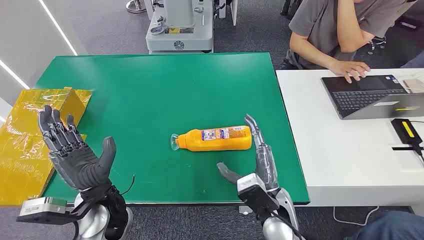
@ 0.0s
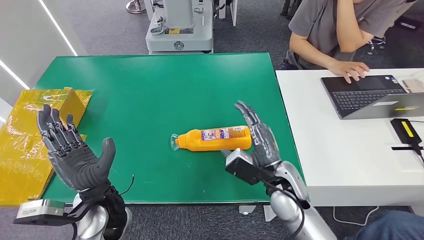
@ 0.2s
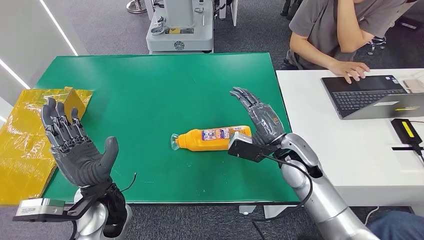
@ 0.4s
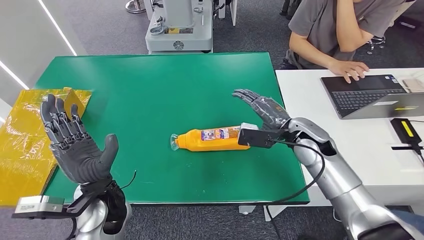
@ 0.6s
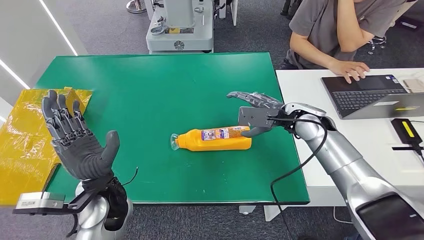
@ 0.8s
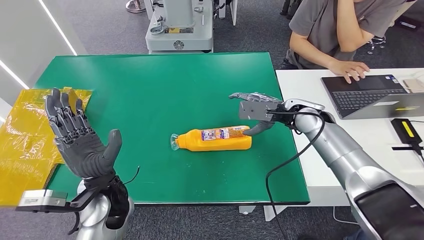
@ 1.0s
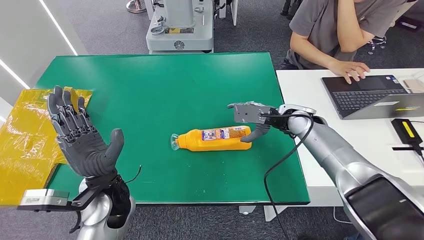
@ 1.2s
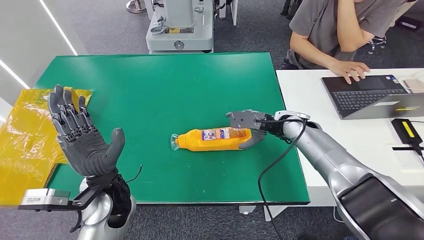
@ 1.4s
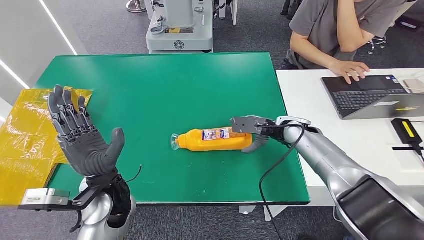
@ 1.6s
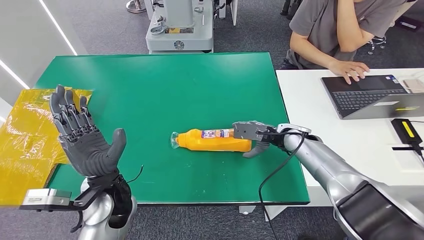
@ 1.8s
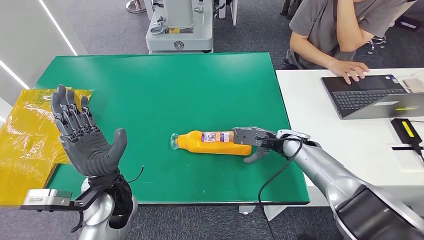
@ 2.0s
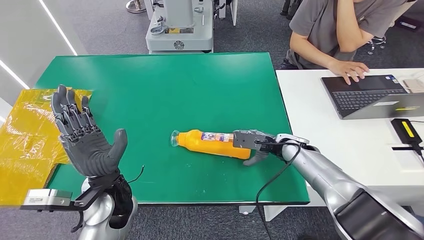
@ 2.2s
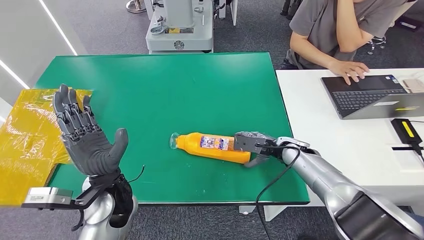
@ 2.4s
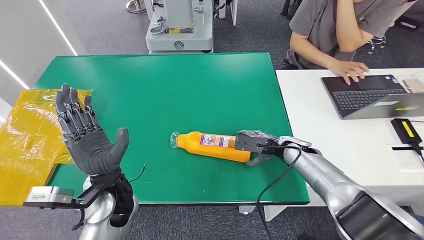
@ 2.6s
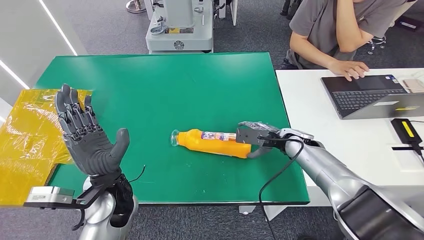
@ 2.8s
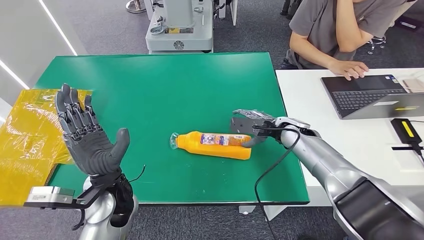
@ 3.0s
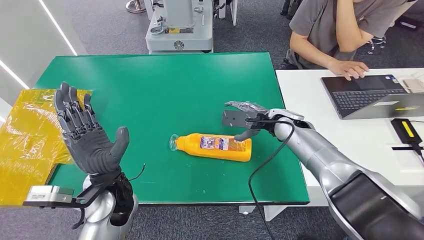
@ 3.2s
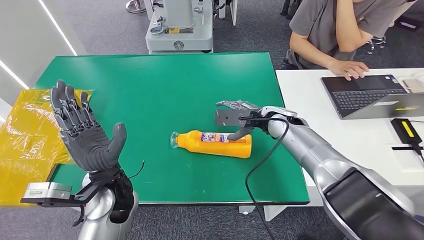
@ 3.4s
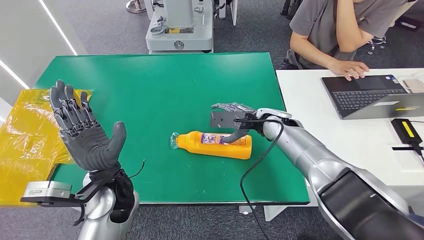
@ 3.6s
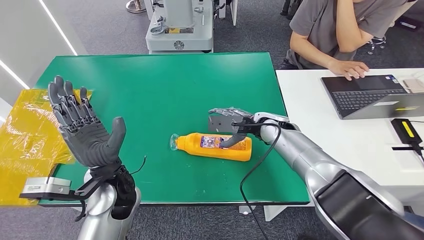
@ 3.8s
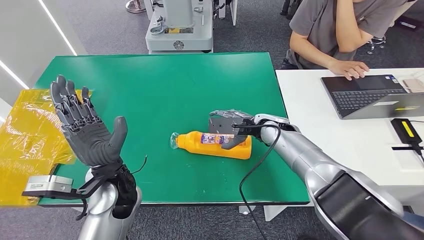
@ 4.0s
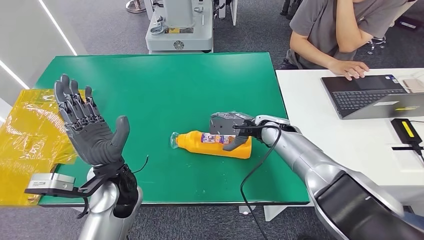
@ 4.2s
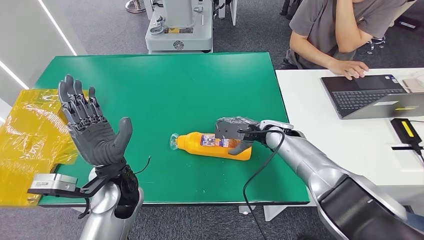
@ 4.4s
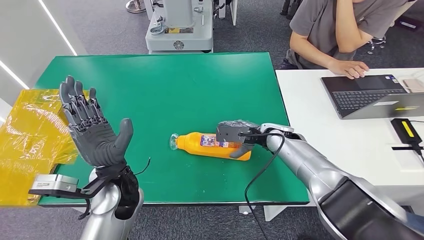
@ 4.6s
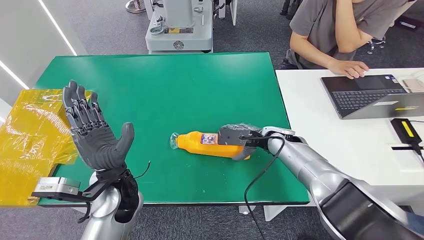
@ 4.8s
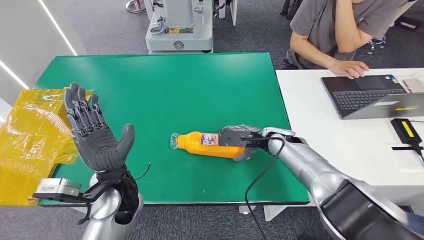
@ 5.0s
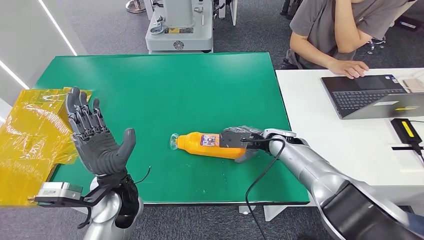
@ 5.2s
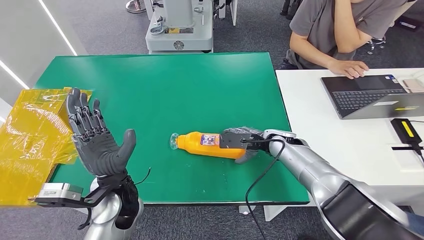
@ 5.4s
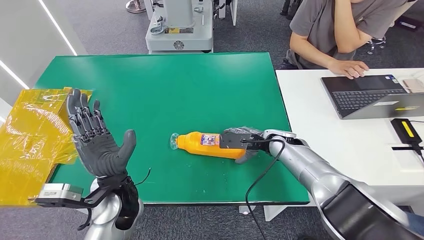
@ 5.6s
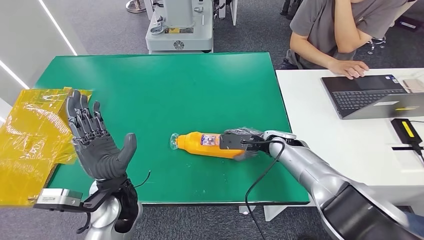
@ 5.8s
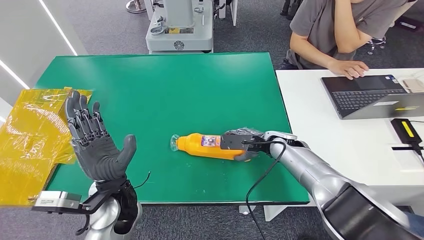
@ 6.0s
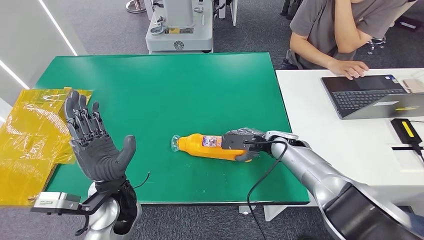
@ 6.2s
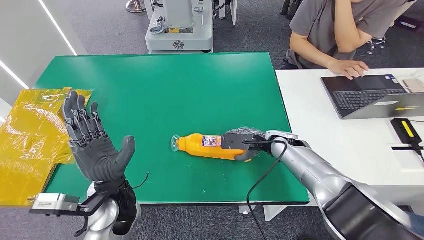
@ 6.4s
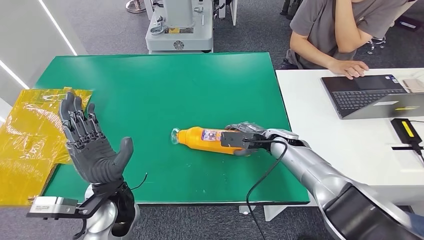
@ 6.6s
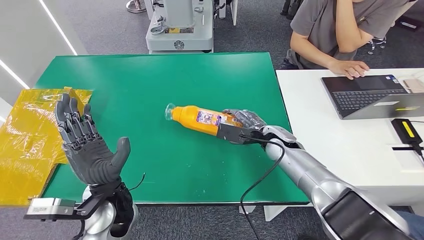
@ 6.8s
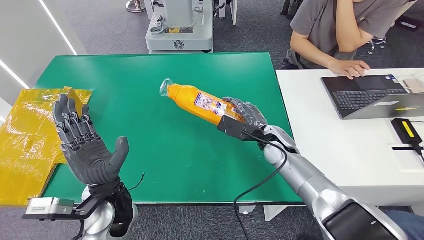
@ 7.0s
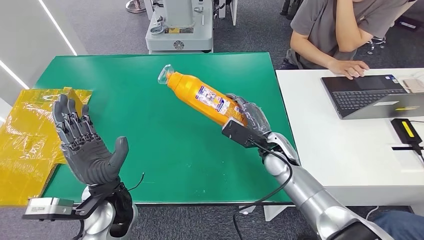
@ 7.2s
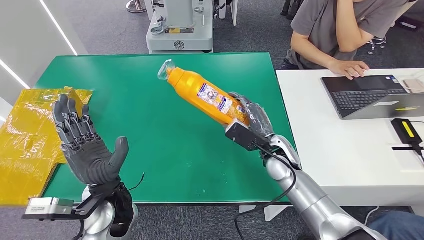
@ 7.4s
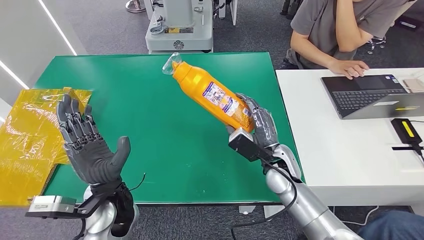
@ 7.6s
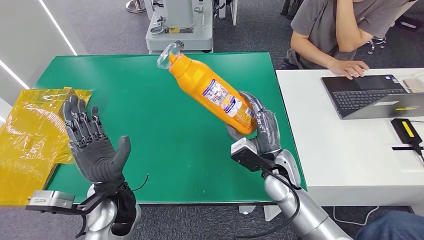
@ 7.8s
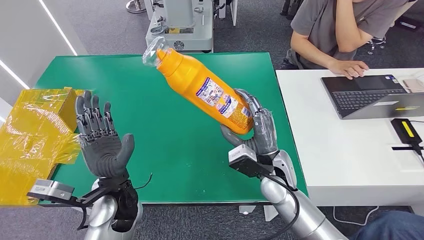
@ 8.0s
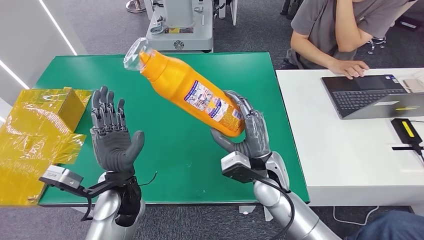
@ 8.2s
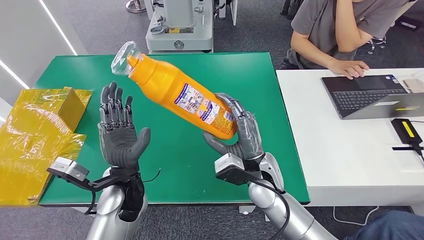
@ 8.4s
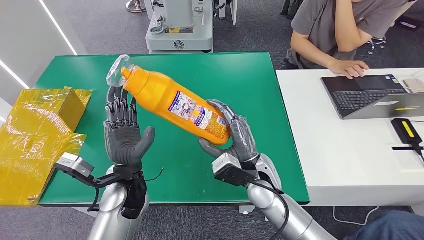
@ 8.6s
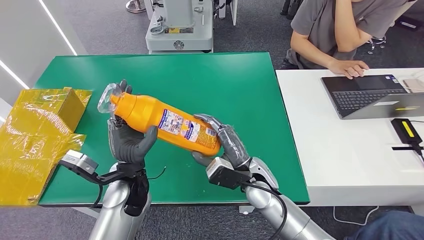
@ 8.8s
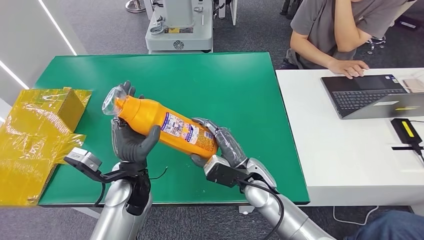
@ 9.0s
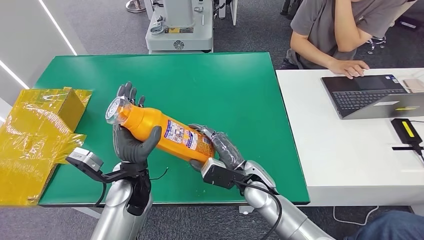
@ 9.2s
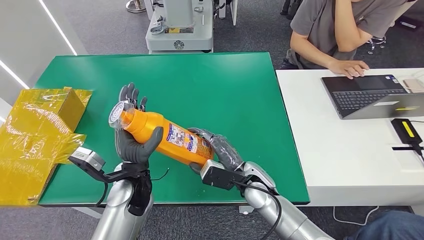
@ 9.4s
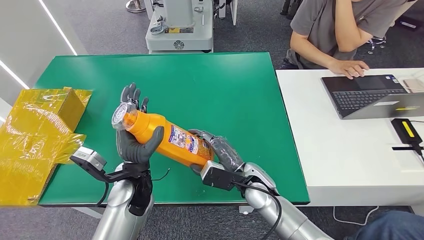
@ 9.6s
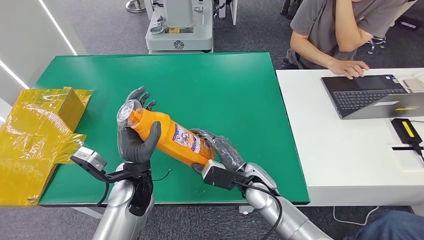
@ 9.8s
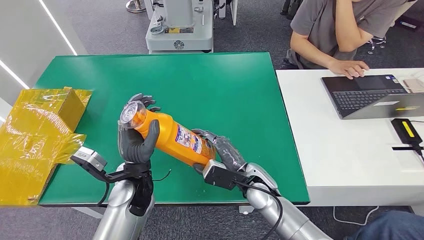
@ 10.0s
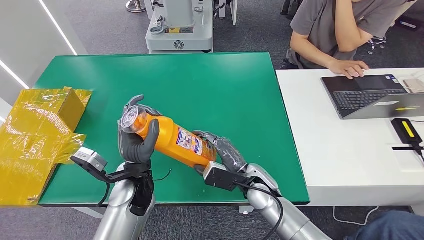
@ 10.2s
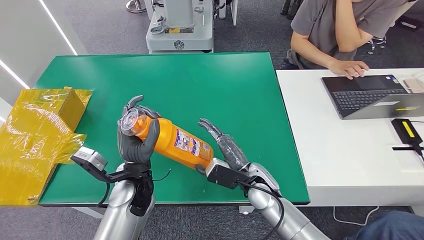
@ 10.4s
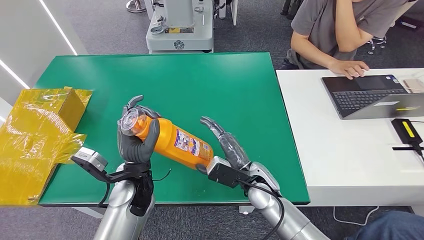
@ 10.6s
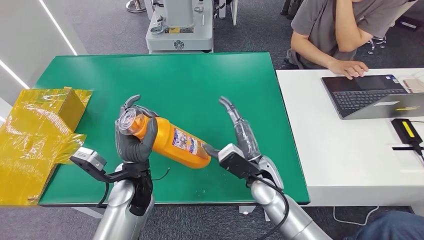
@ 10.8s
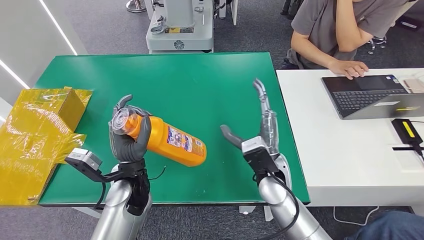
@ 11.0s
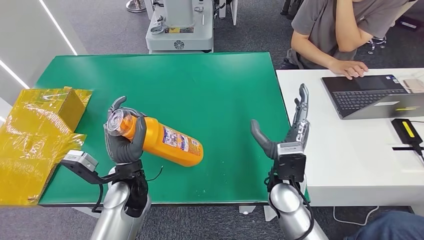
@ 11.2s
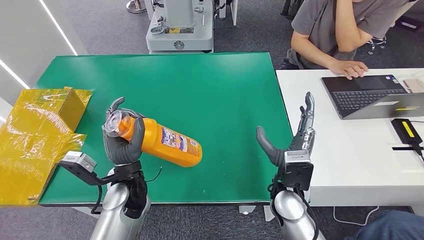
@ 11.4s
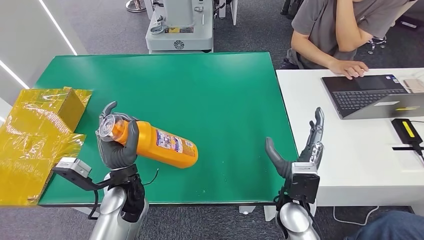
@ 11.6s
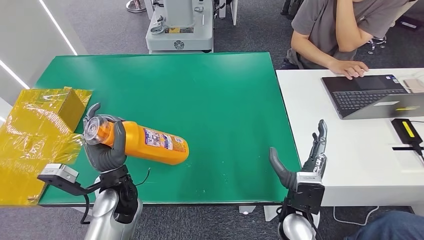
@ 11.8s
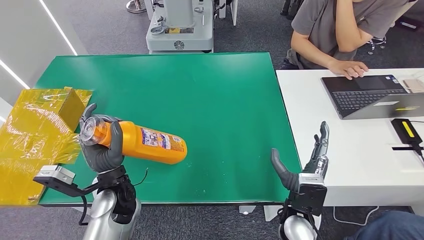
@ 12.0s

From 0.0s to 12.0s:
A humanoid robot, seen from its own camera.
Step, from 0.0s to 9.0s: Pick up the bottle from the table.
From 4.4s to 6.0s: The hands move only a little.
From 6.0s to 7.6s: The right hand is displaced backward by about 10 cm.
From 9.0s to 10.4s: There are only small adjustments of the hands.
From 10.4s to 12.0s: The right hand goes about 10 cm backward and to the right.

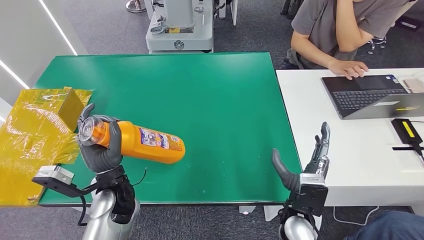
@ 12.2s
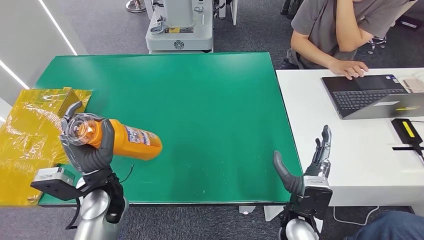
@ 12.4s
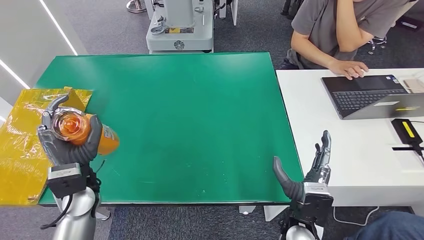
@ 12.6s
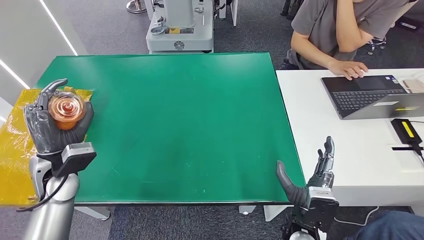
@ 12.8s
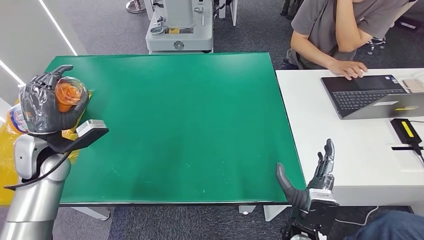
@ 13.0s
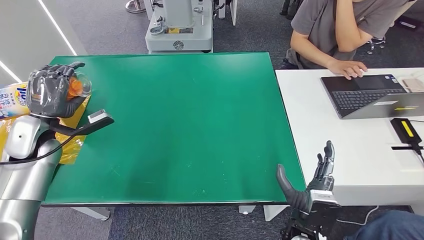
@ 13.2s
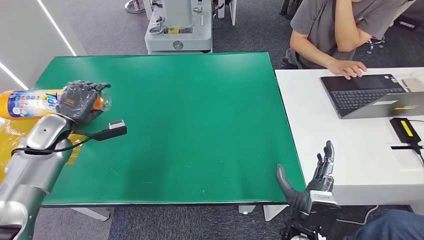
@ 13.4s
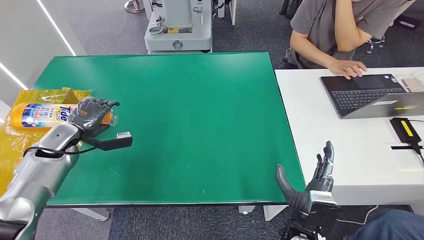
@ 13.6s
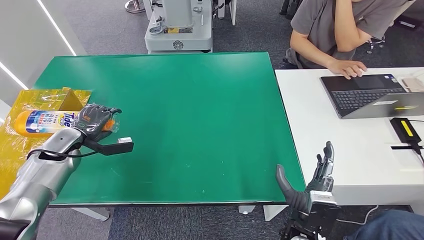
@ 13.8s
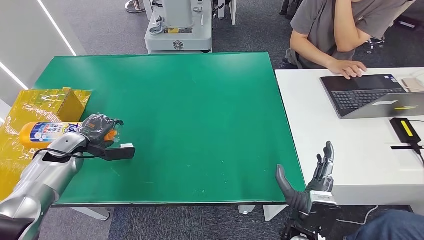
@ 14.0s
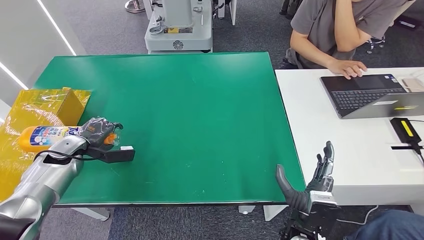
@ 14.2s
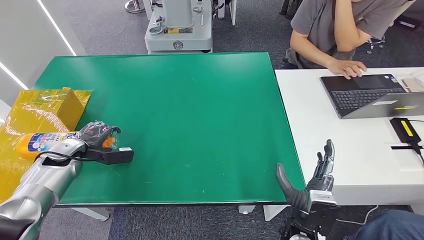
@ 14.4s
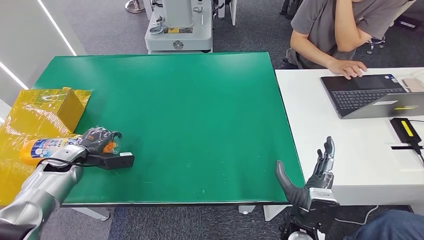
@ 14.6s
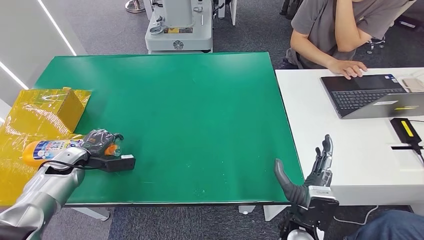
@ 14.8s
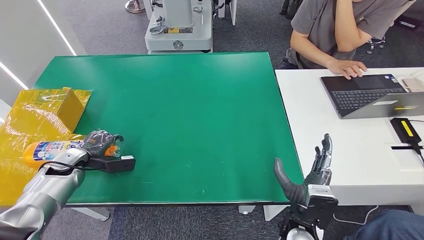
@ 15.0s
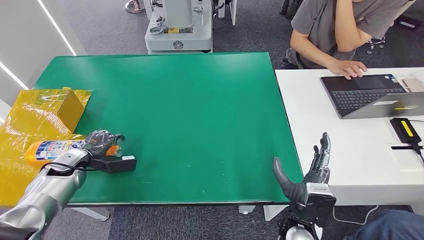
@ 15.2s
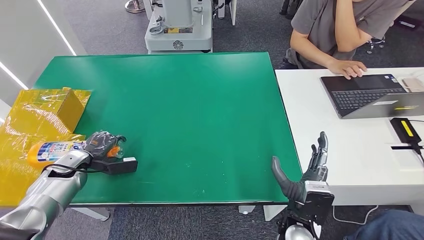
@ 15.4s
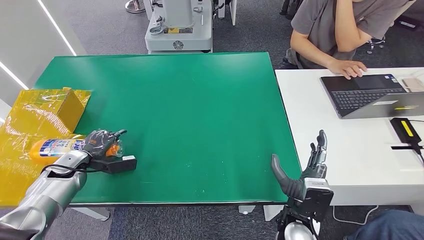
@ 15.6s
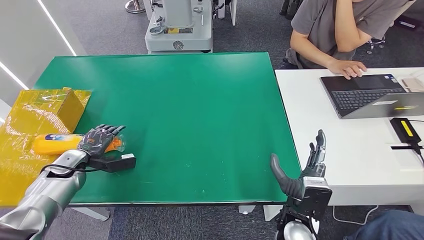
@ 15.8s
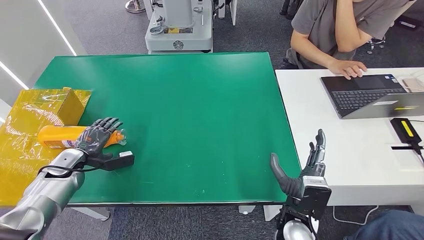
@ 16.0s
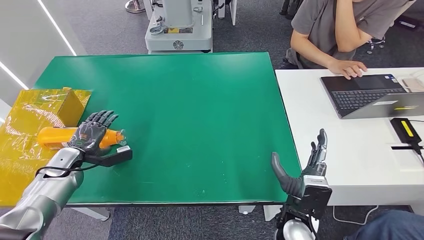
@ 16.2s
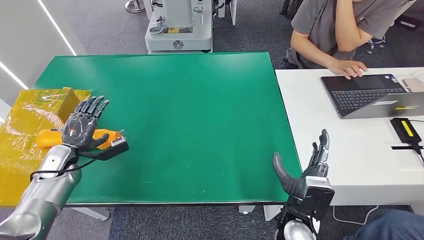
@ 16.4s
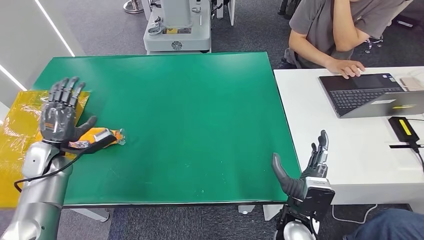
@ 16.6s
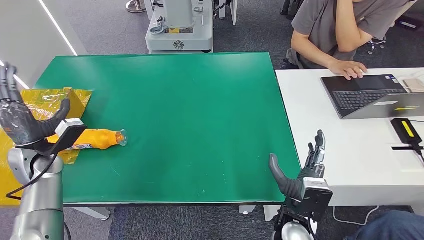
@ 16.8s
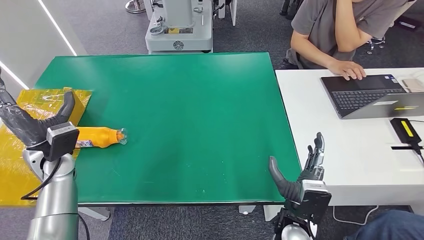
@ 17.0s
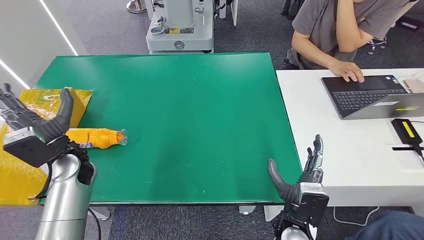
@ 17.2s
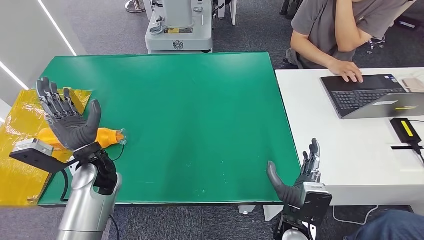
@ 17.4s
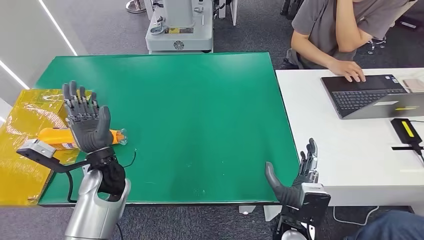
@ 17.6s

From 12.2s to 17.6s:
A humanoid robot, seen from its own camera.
Step, from 12.2s to 17.4s: Turn the bottle to the front side.
From 13.6s to 15.0s: The left hand shifts approximately 5 cm downward.
From 15.0s to 16.2s: The hands move only a little.
From 16.2s to 17.6s: The left hand moves to the right, some 20 cm.
